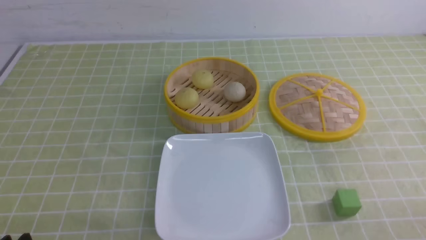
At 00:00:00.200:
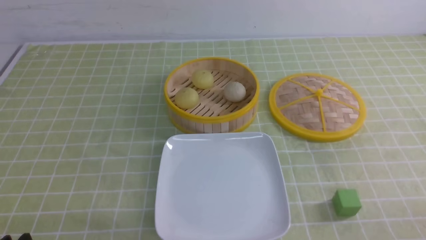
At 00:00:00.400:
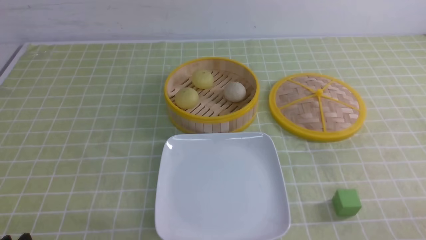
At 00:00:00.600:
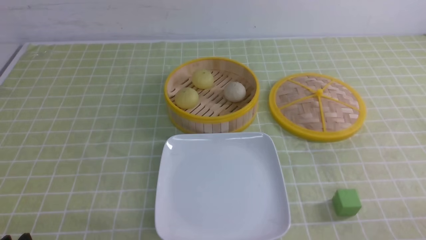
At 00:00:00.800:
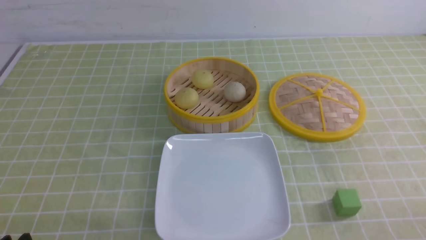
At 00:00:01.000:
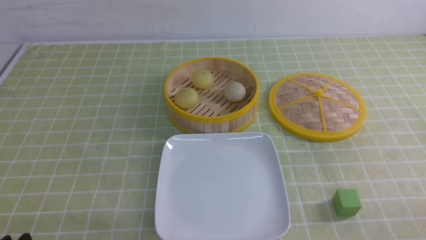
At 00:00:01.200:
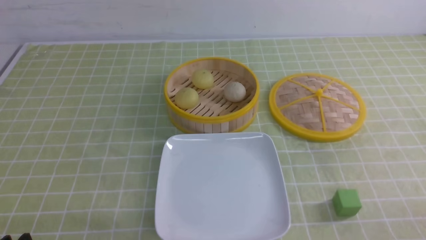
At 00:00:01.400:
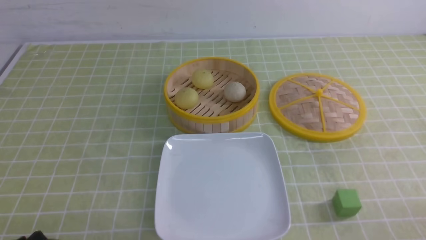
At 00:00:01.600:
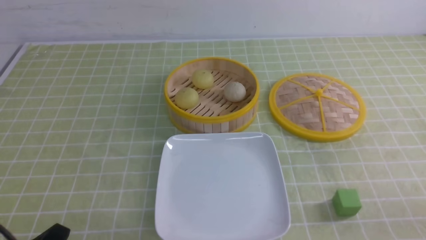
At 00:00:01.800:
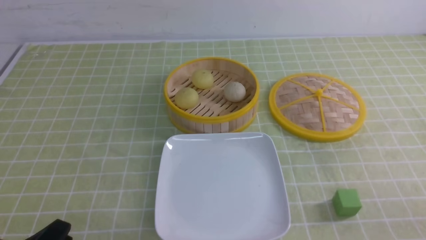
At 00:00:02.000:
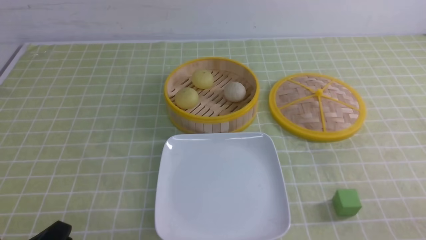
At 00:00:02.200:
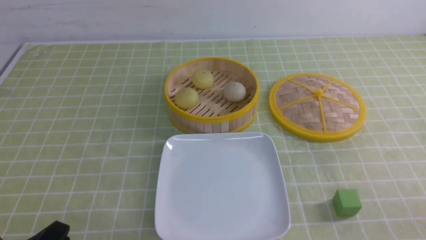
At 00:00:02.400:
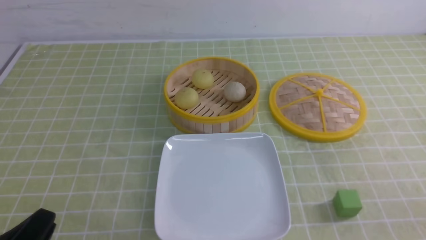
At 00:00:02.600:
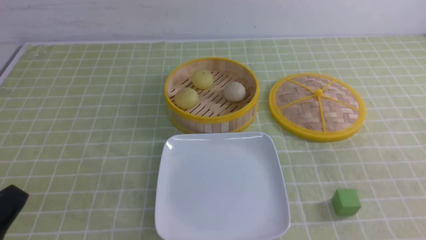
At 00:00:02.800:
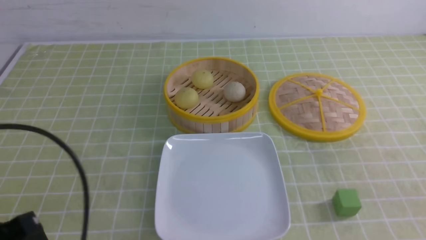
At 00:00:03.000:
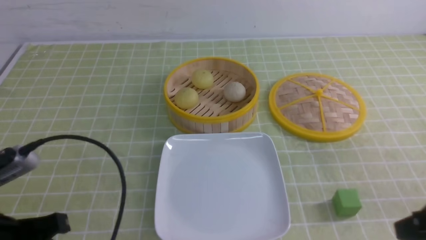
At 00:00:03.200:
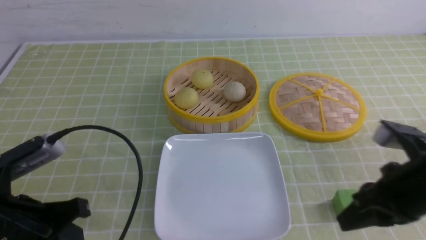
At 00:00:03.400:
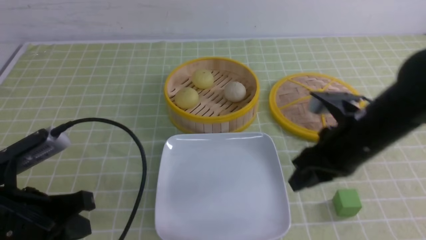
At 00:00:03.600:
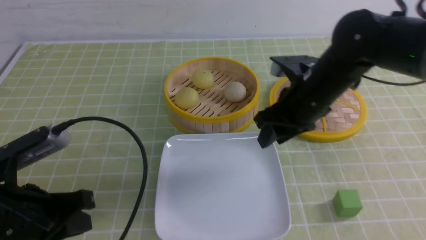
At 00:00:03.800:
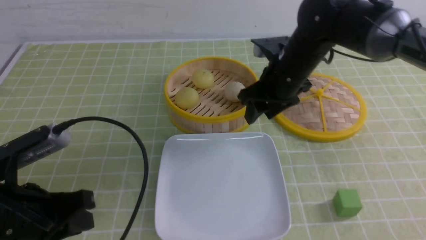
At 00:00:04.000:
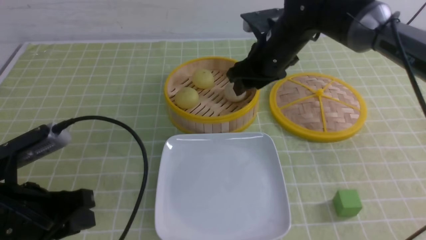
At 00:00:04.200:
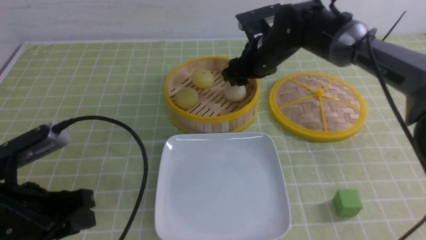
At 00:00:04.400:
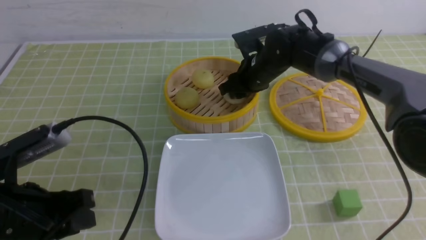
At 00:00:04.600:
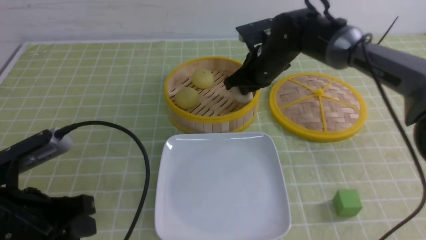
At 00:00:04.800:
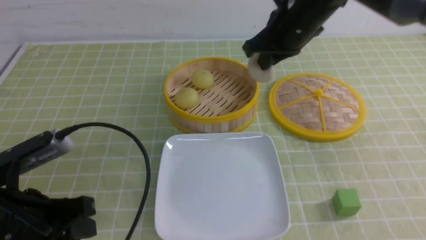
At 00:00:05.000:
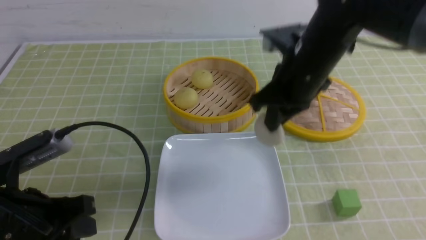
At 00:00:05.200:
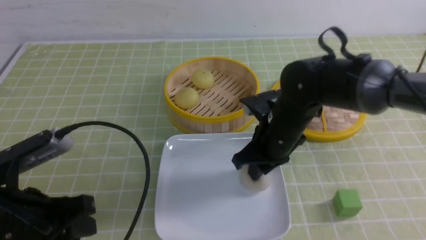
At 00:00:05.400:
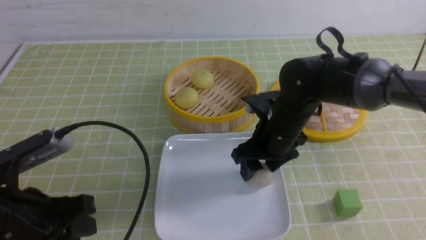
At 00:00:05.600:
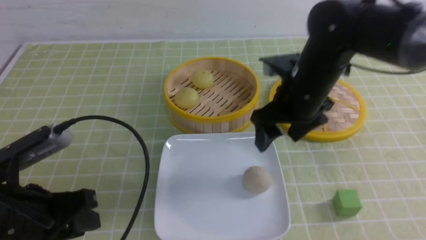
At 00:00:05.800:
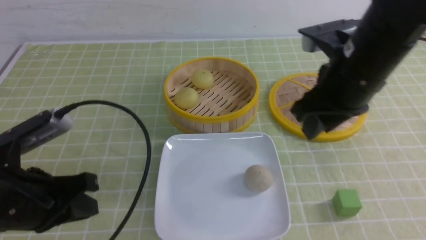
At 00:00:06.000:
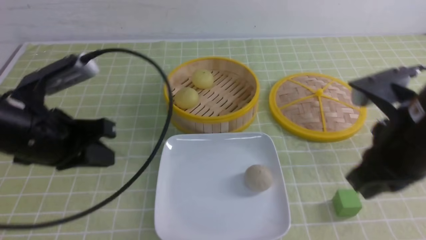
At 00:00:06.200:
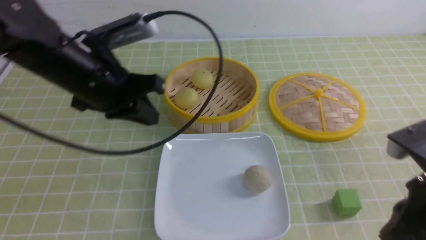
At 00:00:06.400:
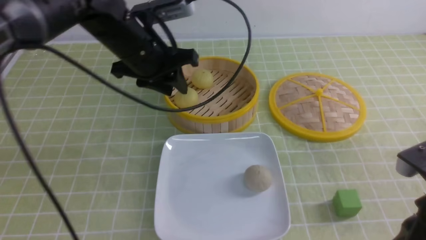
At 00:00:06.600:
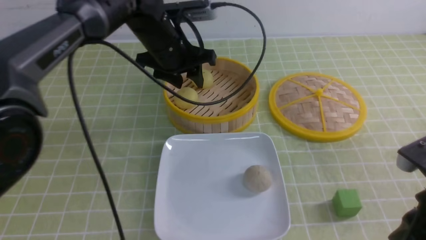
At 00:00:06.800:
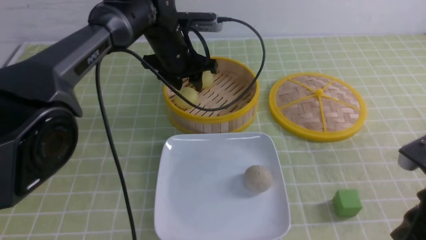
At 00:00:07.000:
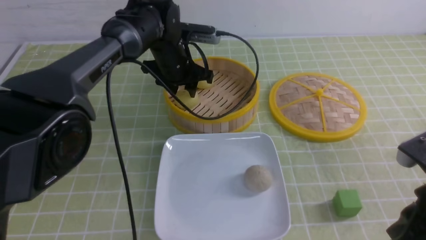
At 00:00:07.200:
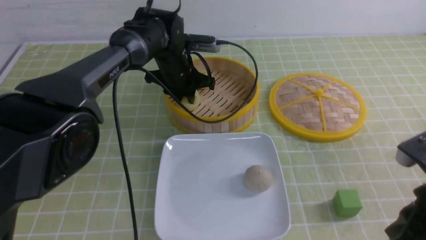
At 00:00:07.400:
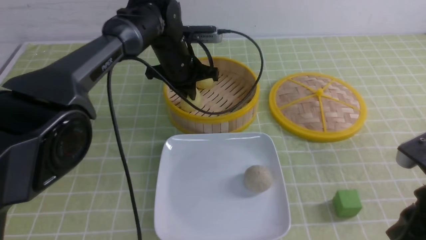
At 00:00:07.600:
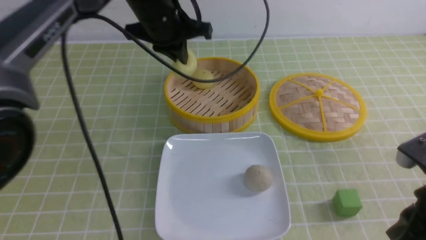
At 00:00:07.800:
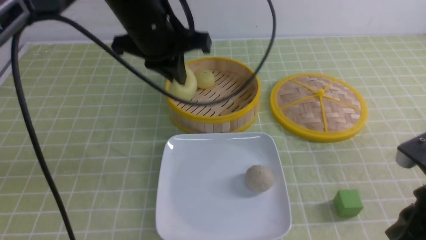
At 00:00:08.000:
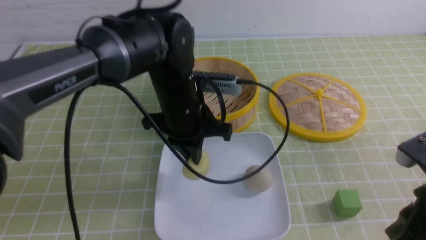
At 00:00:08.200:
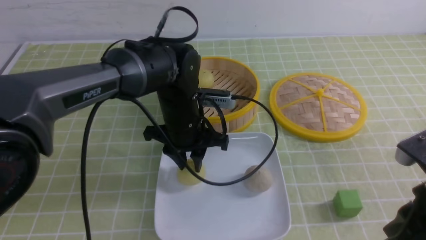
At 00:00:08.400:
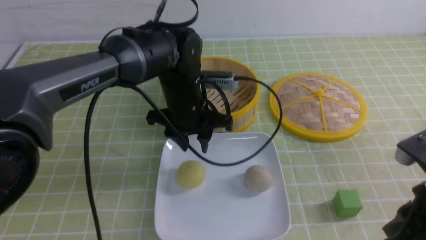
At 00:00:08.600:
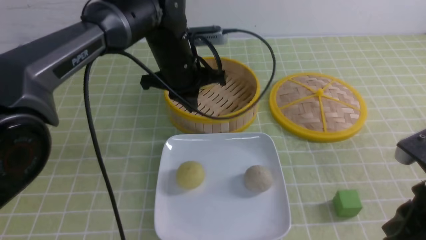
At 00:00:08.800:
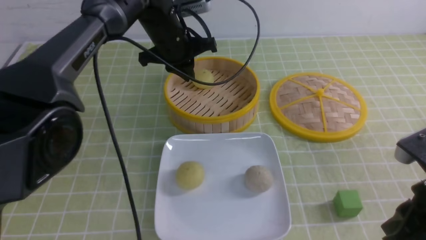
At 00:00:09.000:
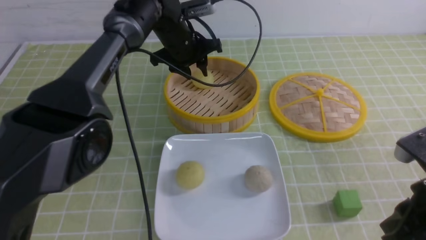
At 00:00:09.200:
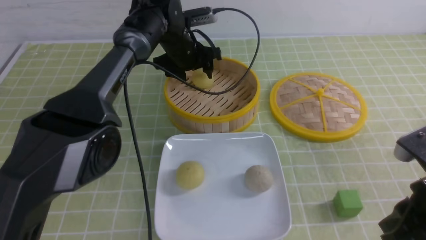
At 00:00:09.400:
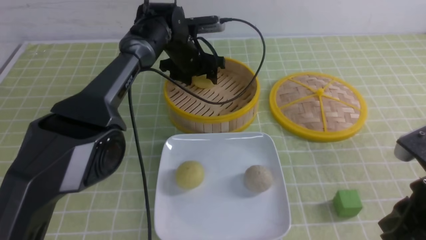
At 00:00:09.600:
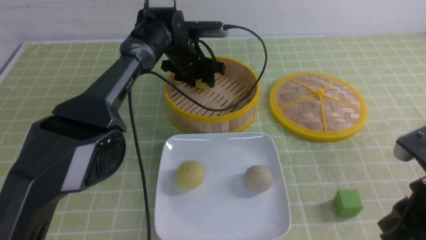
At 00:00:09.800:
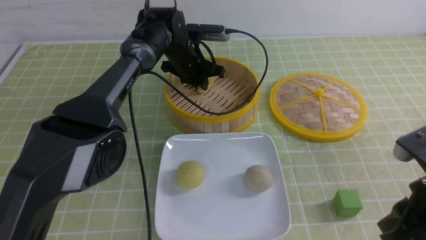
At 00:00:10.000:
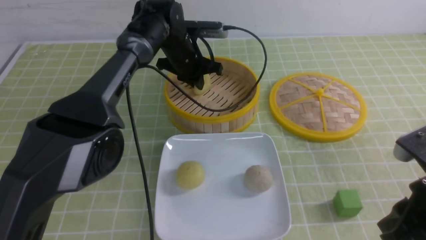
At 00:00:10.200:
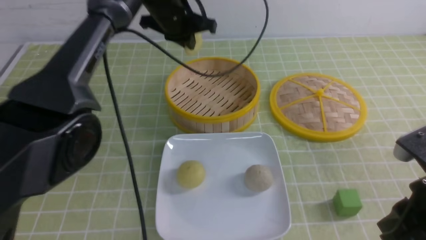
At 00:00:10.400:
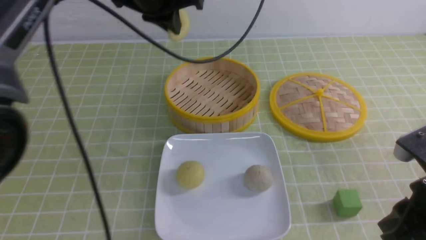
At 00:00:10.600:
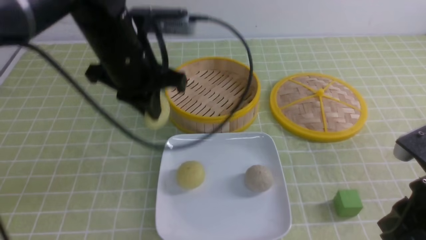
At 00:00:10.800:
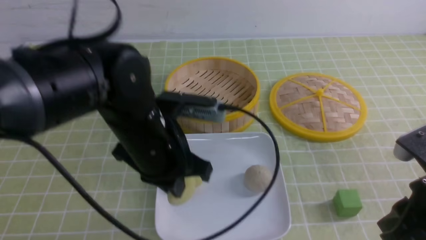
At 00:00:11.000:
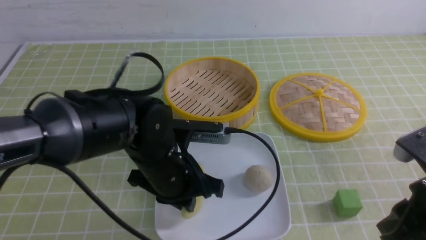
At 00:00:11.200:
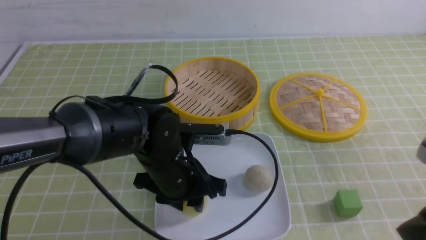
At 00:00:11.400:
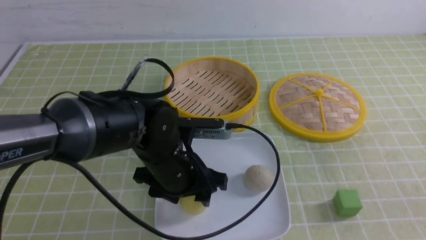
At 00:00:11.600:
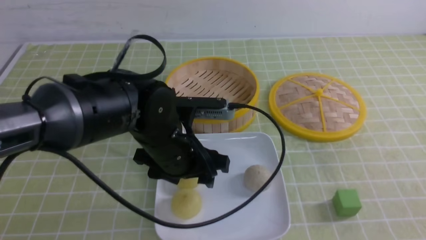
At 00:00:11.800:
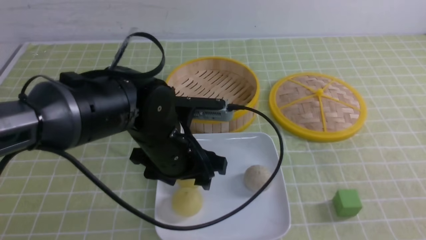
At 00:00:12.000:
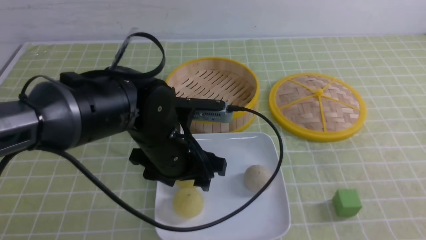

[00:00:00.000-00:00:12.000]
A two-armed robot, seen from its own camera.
Step, 00:00:00.000 to 00:00:04.400: use the right arm to grab the steamed stuffed bun that is closest to it.
Step, 00:00:04.600 to 00:00:05.200: use the right arm to put the steamed stuffed bun into the plate.
Step, 00:00:05.600 to 00:00:07.200: use the left arm to grab the steamed stuffed bun that is closest to it.
Step, 00:00:07.400 to 00:00:08.200: use the left arm to put the steamed stuffed bun into the plate.
Step, 00:00:08.400 to 00:00:09.800: use the left arm to grab the steamed stuffed bun that is closest to it.
Step, 00:00:10.000 to 00:00:11.400: use the left arm to put the steamed stuffed bun into the plate.
00:00:01.600 to 00:00:03.000: The left gripper heads upward and forward, covering some 10 cm, and closes up. Meanwhile the right gripper travels forward and upward by some 10 cm, and closes its fingers.
00:00:03.000 to 00:00:04.400: The left gripper opens up. Meanwhile the right gripper is displaced forward and to the left by approximately 35 cm, and opens.
00:00:04.400 to 00:00:06.000: The left gripper shifts some 10 cm forward and upward, while the right gripper shifts about 30 cm backward and to the right, and closes.
00:00:06.000 to 00:00:07.600: The right gripper heads backward, covering approximately 5 cm; the left gripper moves forward and to the right, approximately 20 cm, and opens, then closes again.
00:00:07.600 to 00:00:09.000: The left gripper moves forward and downward, some 10 cm, and opens up.
00:00:09.000 to 00:00:10.400: The left gripper is displaced upward and backward by roughly 15 cm, and closes up.
00:00:10.400 to 00:00:12.000: The right gripper goes roughly 15 cm backward and to the right; the left gripper travels backward and downward by some 20 cm, and opens its fingers.

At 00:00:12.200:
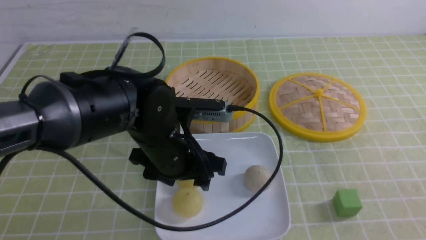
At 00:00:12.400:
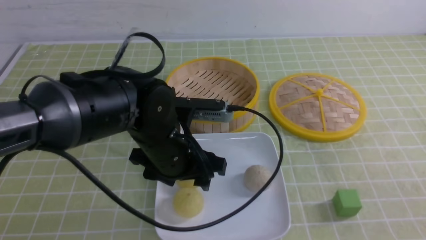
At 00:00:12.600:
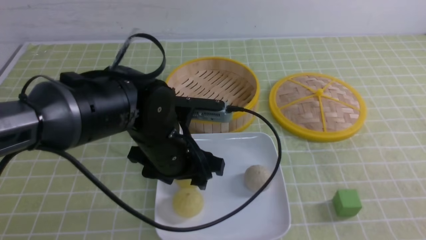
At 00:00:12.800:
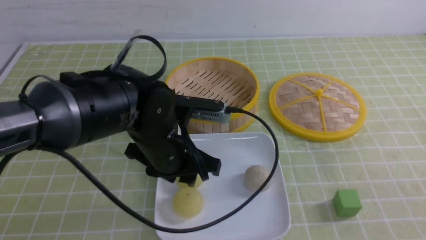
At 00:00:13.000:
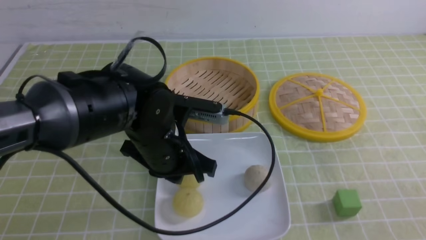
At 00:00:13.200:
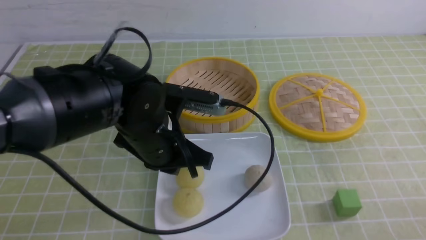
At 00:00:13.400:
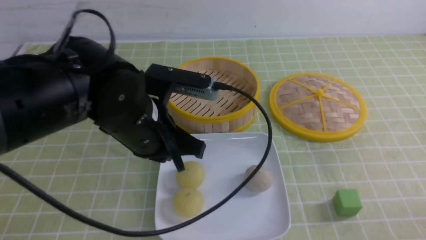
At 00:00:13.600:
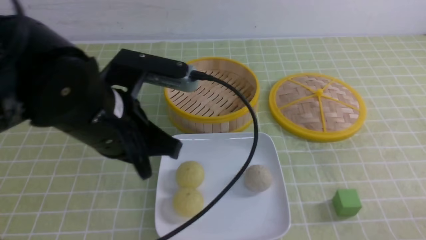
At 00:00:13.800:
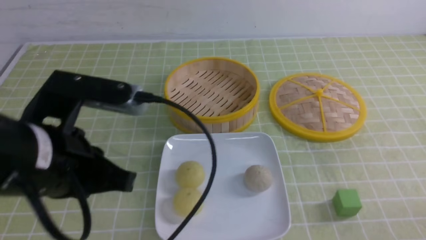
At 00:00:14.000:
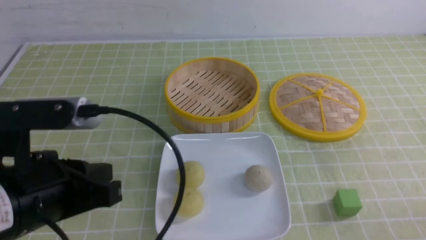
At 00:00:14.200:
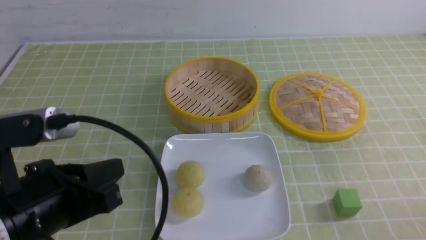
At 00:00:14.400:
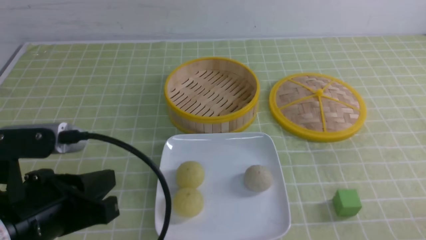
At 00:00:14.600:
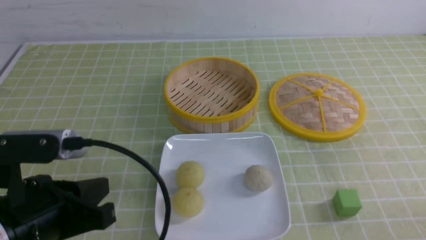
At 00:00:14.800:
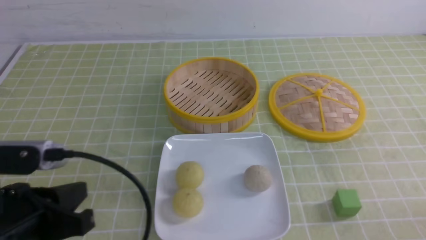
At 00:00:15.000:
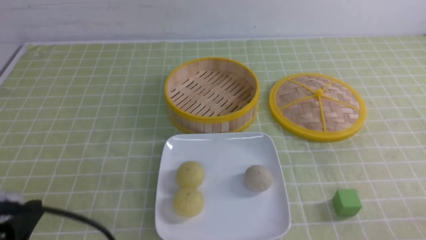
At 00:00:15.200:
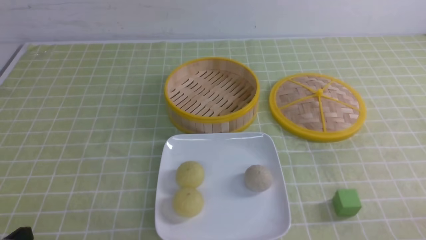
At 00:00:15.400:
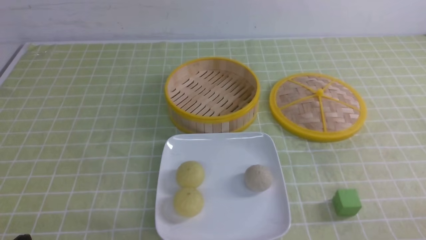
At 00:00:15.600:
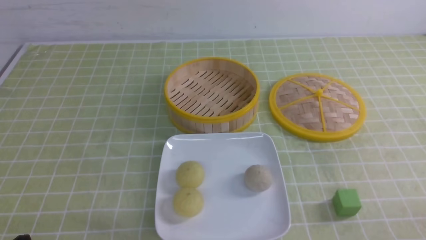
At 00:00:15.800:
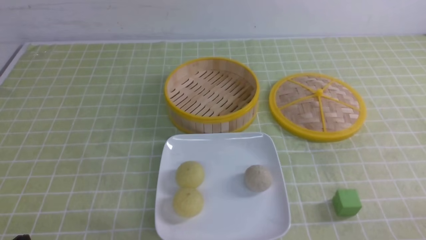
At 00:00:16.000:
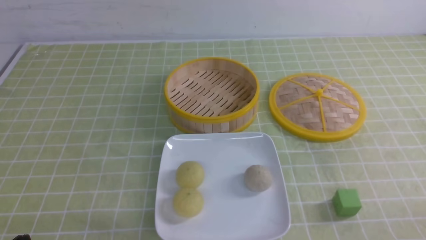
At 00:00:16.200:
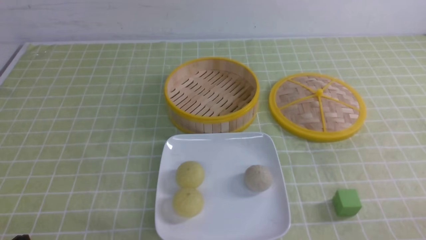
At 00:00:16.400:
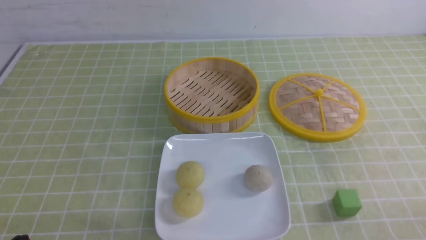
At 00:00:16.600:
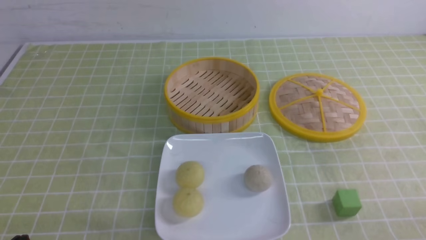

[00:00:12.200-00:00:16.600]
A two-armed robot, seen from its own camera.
00:00:12.200 to 00:00:13.600: The right gripper moves downward, about 10 cm. Meanwhile the left gripper heads upward, to the left and backward, covering approximately 10 cm, and closes.
00:00:13.600 to 00:00:15.200: The left gripper shifts about 25 cm backward, to the left and downward.
